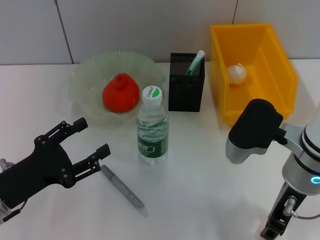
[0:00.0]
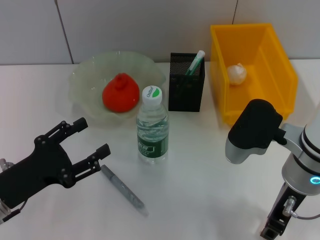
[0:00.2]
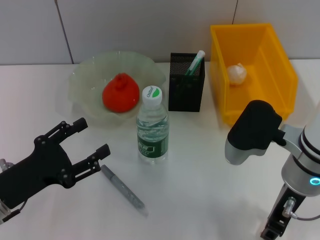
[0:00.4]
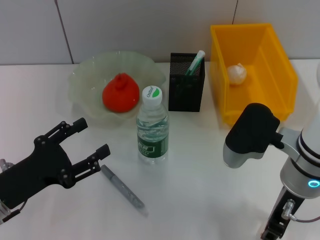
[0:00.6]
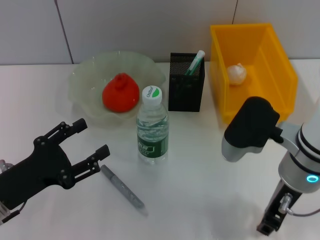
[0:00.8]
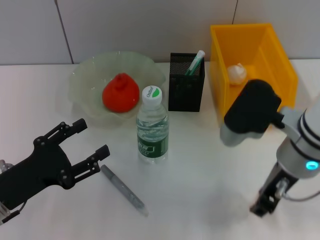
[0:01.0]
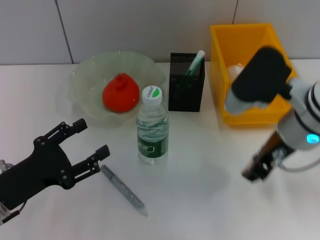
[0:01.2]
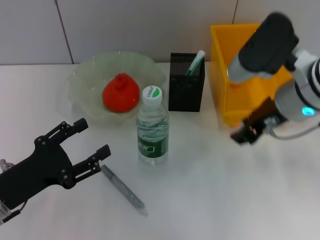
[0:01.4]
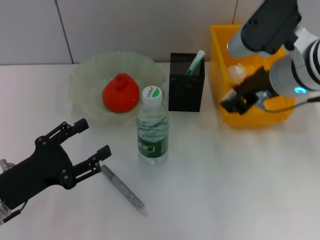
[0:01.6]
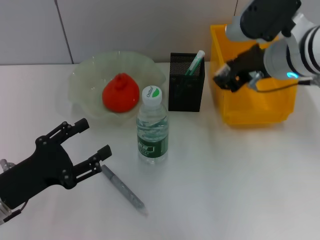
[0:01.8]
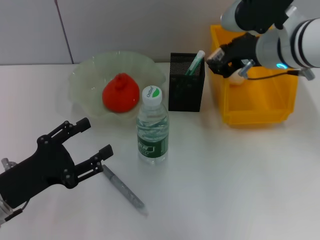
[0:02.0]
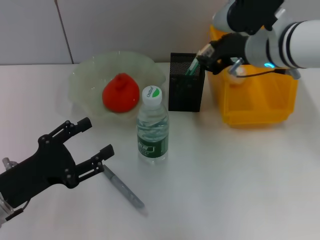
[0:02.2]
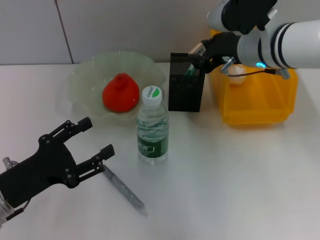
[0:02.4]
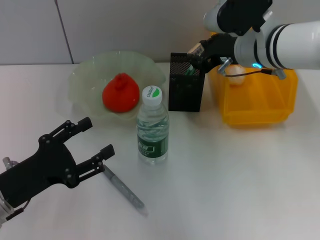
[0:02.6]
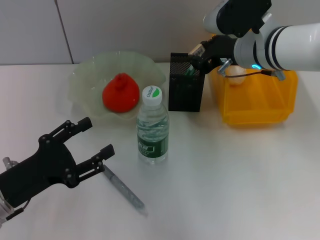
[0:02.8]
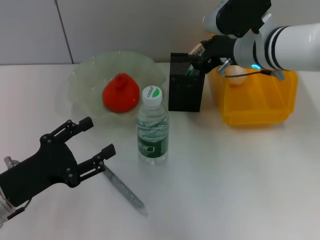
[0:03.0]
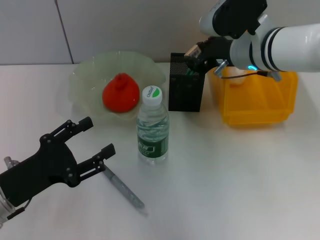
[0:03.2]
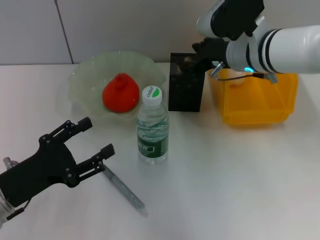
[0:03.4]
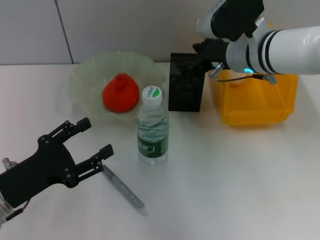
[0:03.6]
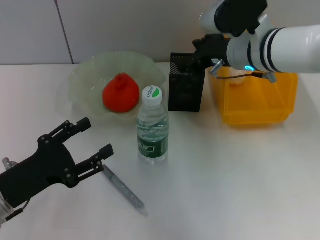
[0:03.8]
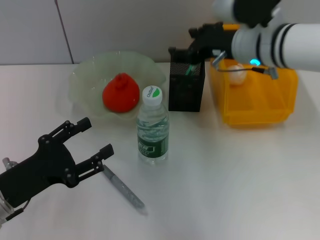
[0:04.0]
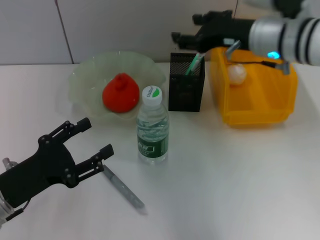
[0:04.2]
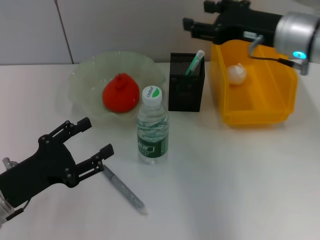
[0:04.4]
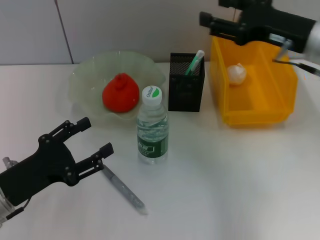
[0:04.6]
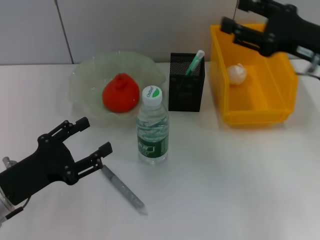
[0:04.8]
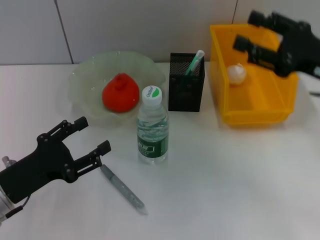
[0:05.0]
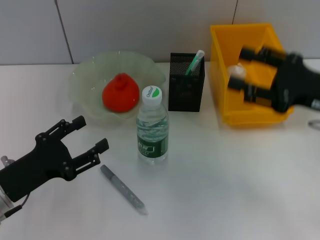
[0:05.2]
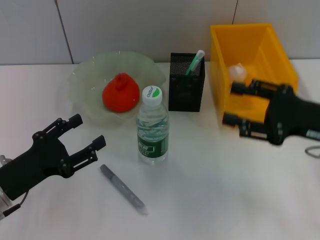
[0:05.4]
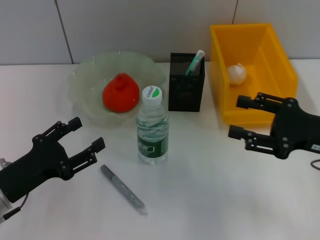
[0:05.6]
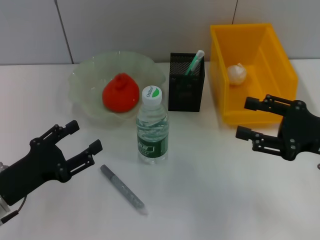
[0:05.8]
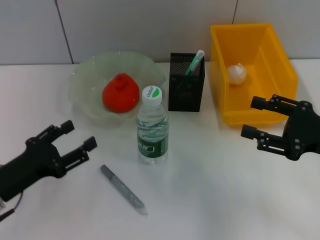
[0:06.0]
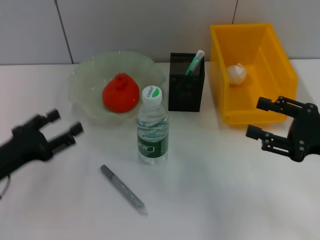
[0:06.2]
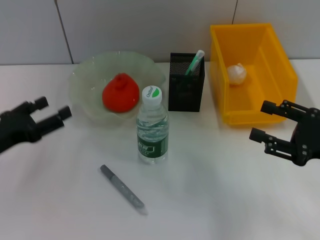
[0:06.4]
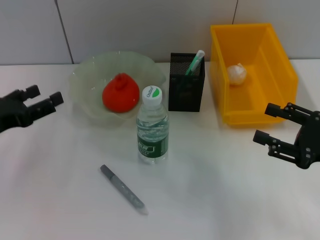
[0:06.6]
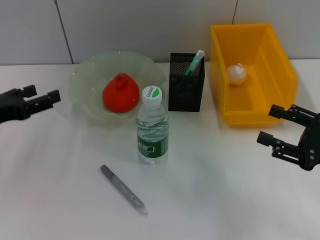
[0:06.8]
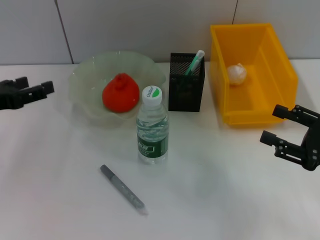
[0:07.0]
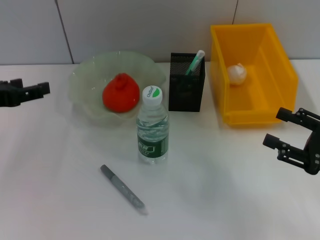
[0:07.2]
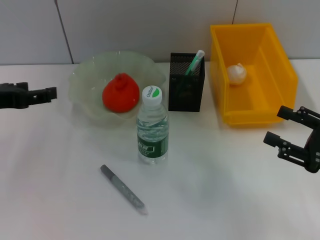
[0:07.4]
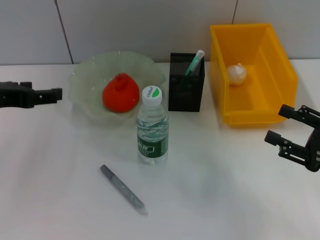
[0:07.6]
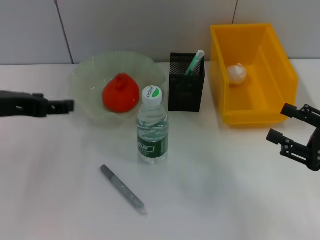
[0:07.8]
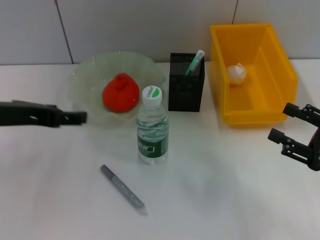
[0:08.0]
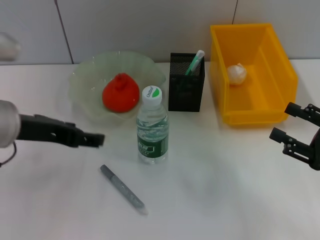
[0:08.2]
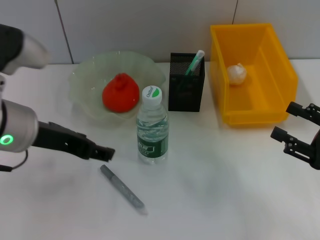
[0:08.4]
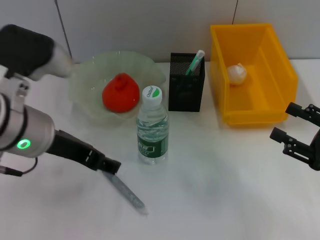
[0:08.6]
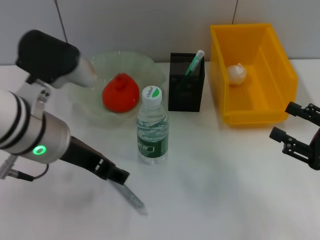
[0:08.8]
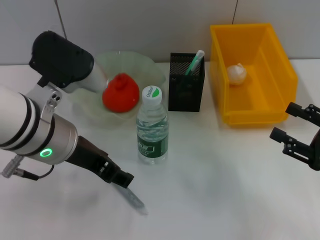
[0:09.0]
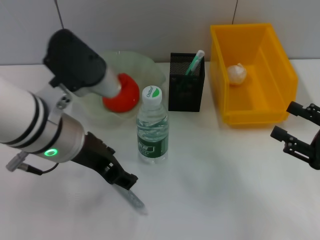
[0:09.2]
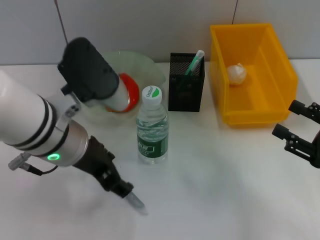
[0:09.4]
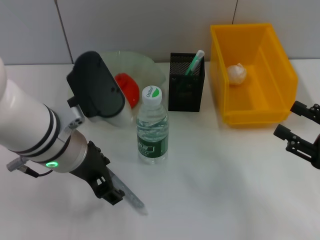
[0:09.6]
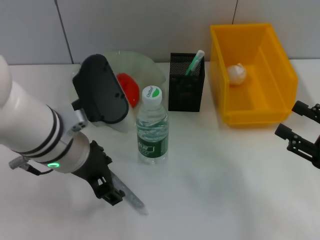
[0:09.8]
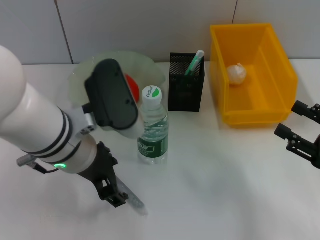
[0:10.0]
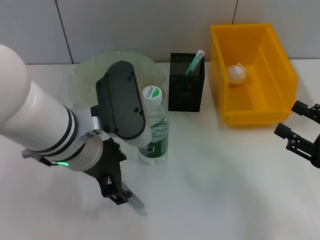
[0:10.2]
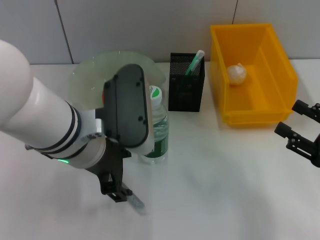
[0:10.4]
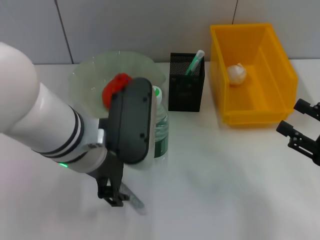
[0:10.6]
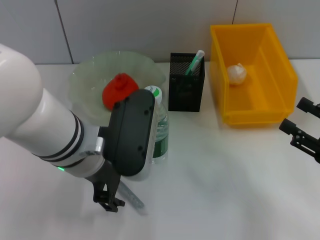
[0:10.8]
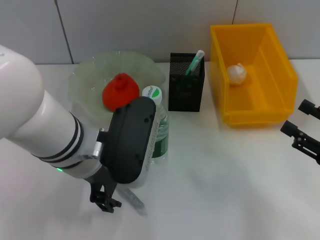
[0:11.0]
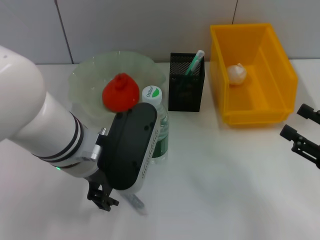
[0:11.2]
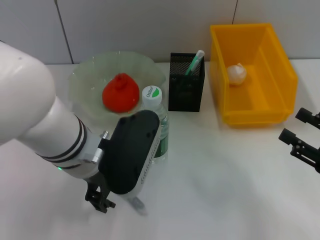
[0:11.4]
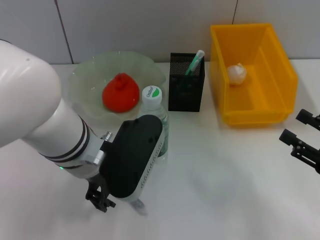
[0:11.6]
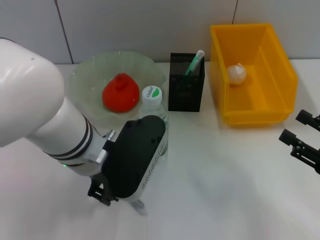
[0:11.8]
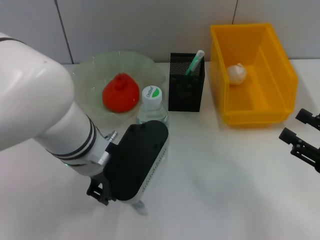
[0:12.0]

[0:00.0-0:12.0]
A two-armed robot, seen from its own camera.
Step, 0:00.8 to 0:03.6: Put the eraser into the pen holder with the right hand.
0:00.0 to 0:01.6: The right gripper moves upward and forward, about 10 cm.
0:01.6 to 0:03.0: The right gripper goes roughly 5 cm forward.
0:03.0 to 0:04.4: The right gripper moves to the right, some 5 cm, and opens its fingers.
0:04.4 to 0:06.0: The right gripper goes roughly 20 cm backward, to the right and downward.
0:06.0 to 0:07.6: The left gripper shifts approximately 15 cm upward.
0:07.6 to 0:09.0: The left gripper is displaced to the right by approximately 10 cm.

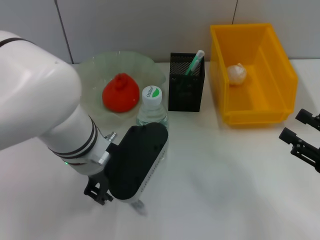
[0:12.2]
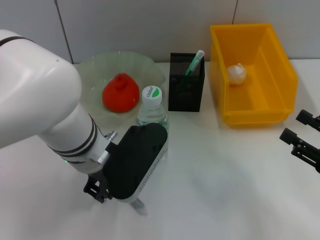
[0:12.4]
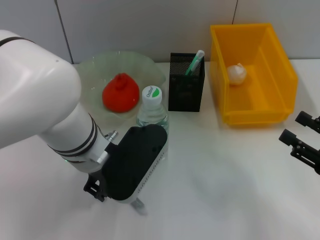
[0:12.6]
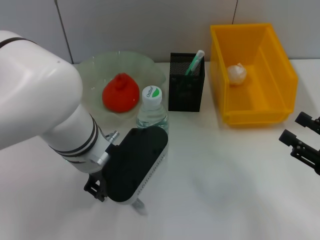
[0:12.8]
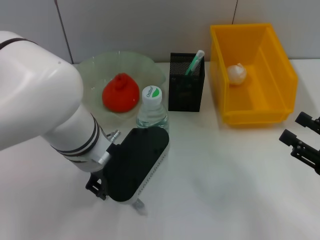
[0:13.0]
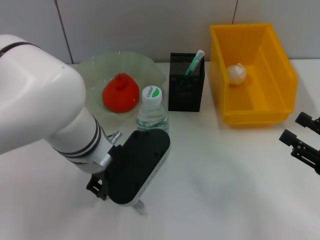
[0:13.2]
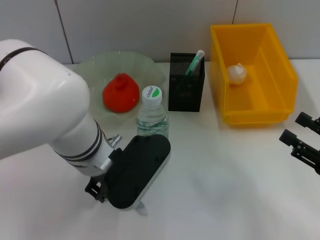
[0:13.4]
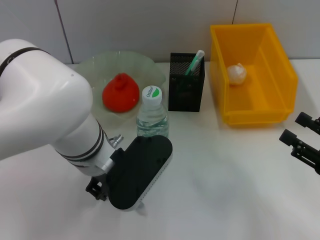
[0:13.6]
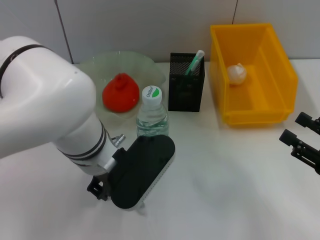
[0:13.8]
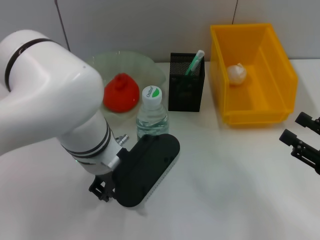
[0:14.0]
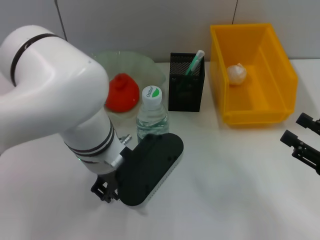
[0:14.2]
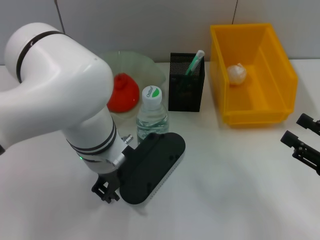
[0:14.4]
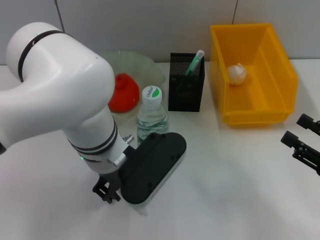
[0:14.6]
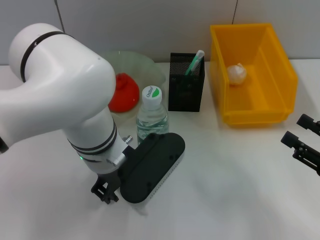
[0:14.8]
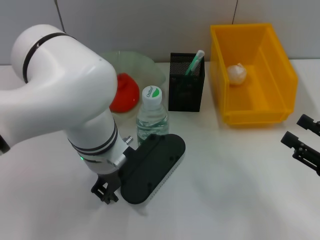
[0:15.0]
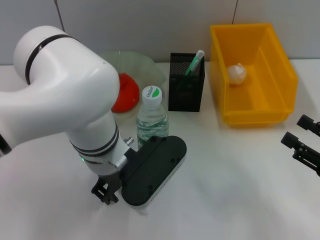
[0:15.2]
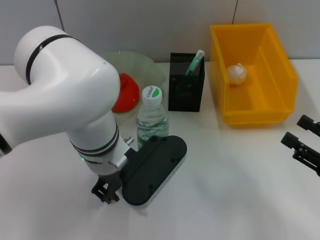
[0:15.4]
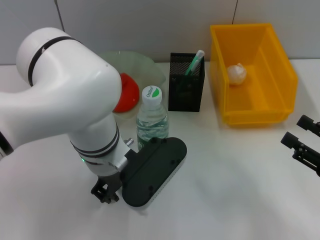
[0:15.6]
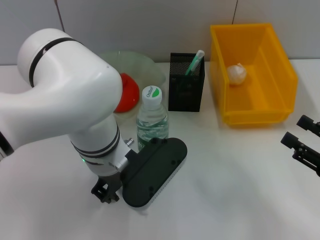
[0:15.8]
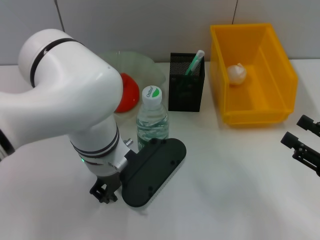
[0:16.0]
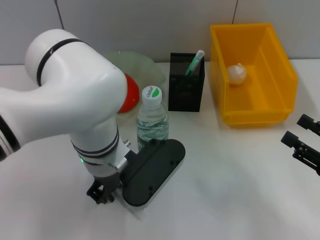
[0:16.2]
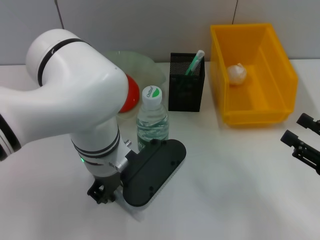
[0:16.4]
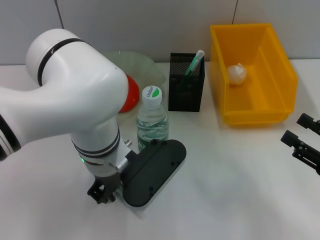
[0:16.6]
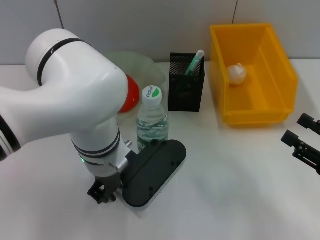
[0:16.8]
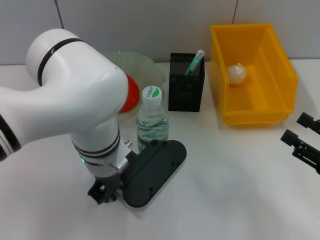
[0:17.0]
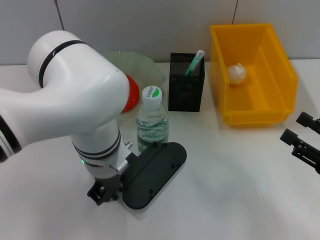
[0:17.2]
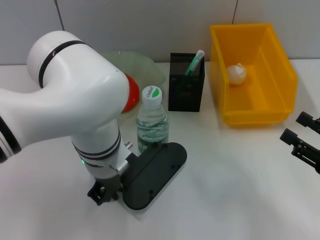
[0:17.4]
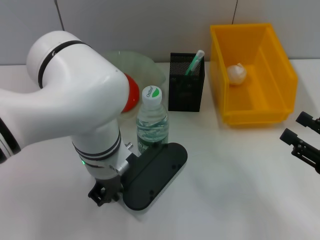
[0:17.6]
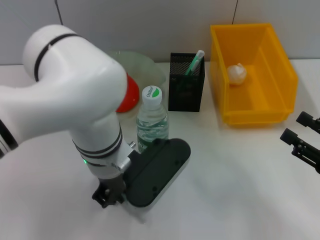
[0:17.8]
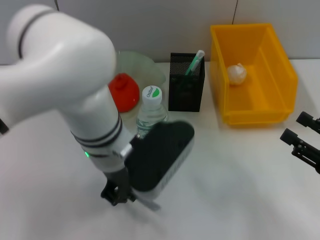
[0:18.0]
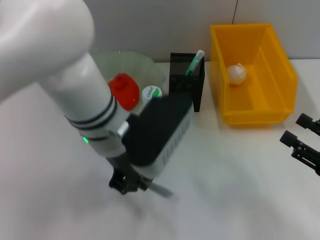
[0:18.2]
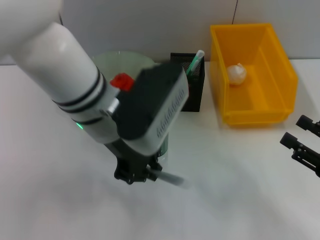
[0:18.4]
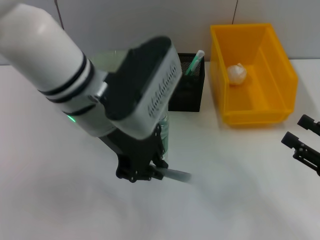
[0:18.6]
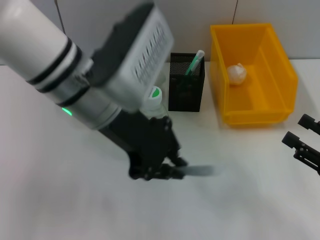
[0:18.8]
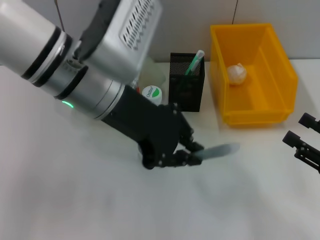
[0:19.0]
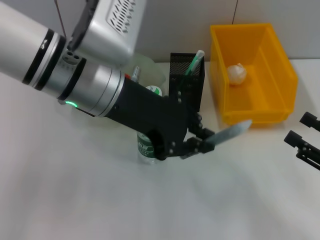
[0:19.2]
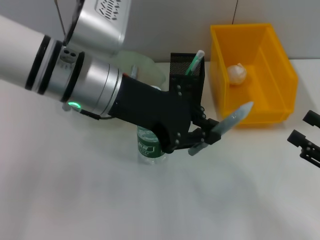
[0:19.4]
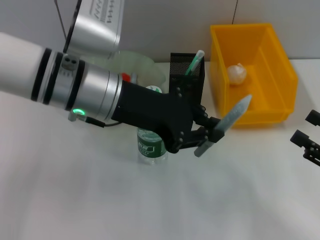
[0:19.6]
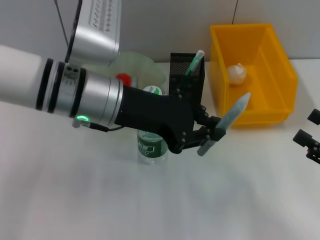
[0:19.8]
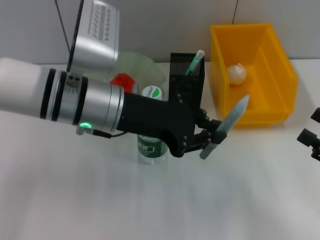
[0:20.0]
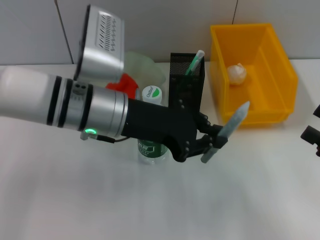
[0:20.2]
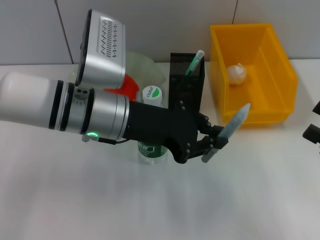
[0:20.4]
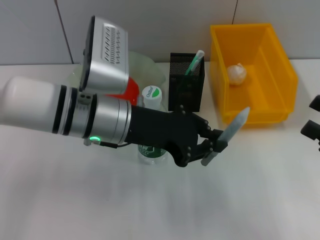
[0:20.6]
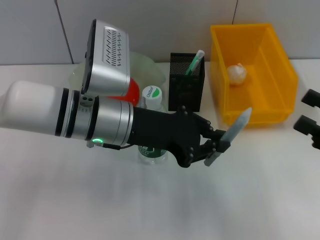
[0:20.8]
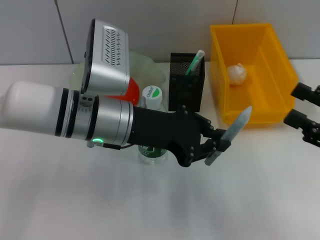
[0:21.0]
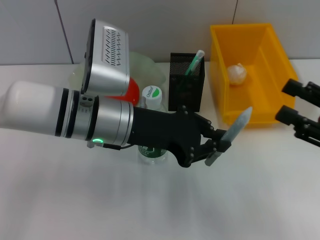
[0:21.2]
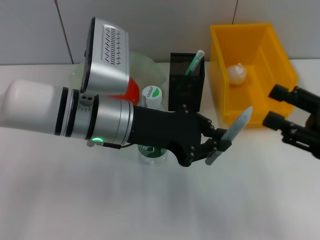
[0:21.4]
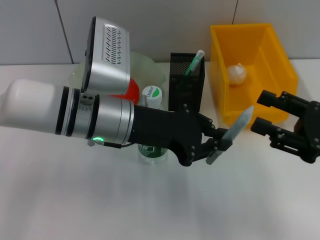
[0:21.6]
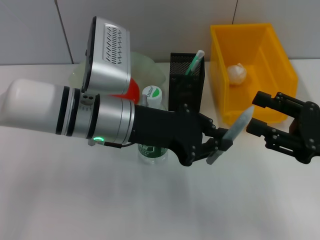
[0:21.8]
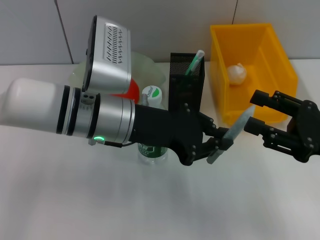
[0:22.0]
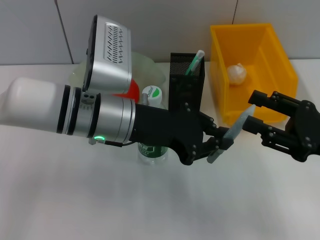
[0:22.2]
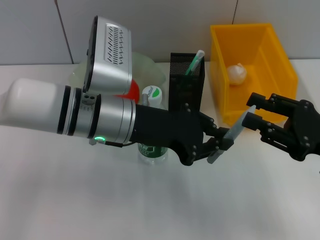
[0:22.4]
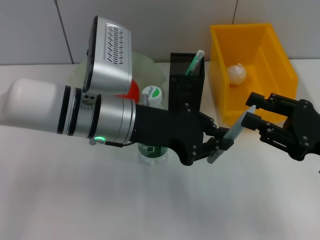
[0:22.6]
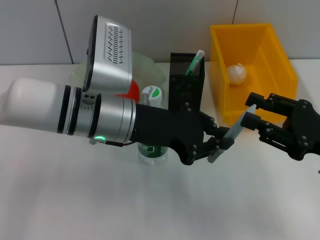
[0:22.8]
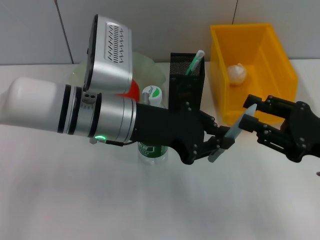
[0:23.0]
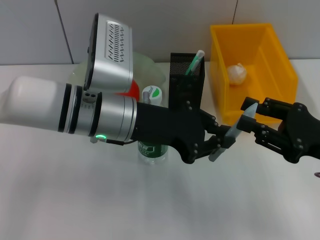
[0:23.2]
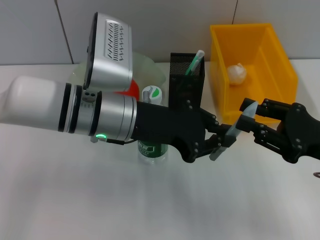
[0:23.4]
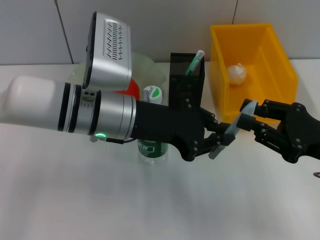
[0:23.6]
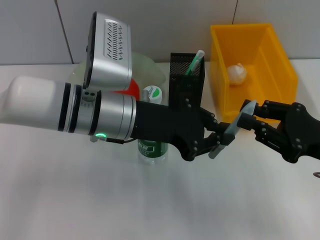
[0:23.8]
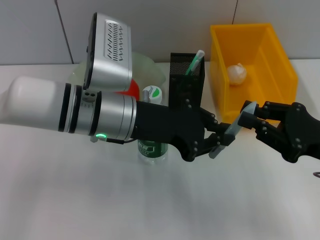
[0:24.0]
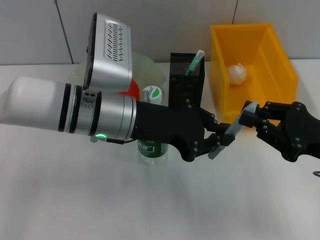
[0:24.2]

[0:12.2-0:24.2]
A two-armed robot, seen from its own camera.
Step, 0:12.2 to 0:17.4: Grab the gray glue with the left hand.
0:12.2 to 0:15.2: There are only small adjustments of the grippers.
0:15.2 to 0:16.6: Both grippers stay put.
0:16.6 to 0:18.2: The left gripper travels upward by approximately 5 cm.
0:19.8 to 0:21.2: The right gripper shifts by about 5 cm.
0:21.2 to 0:22.6: There are only small adjustments of the grippers.
0:22.6 to 0:24.2: The right gripper closes.
